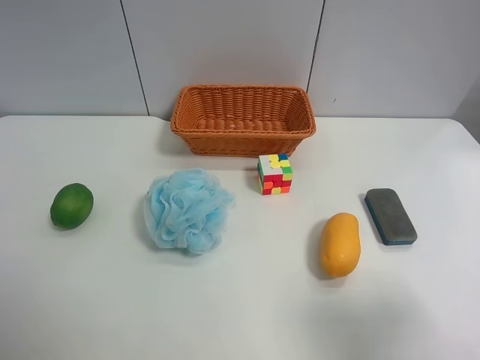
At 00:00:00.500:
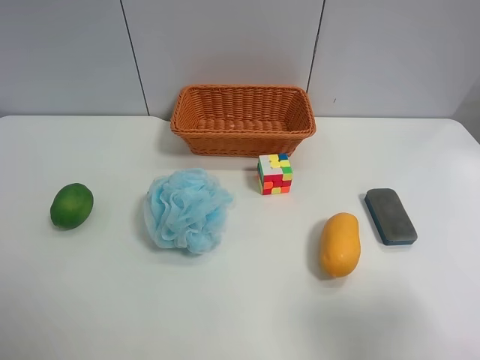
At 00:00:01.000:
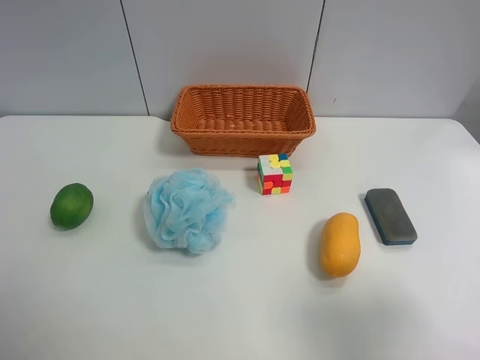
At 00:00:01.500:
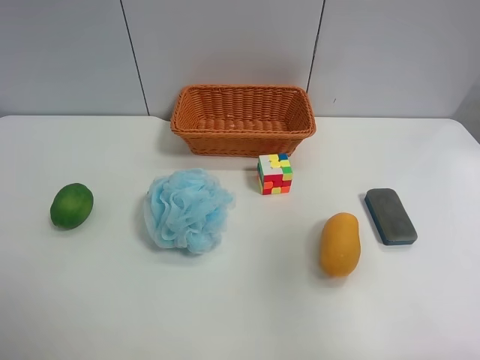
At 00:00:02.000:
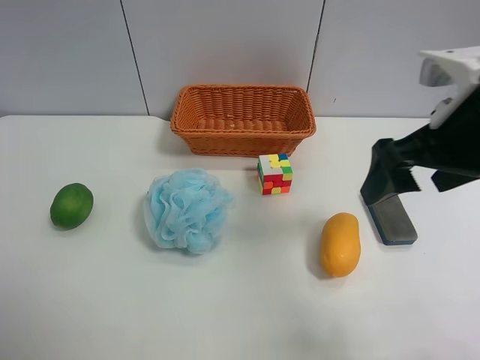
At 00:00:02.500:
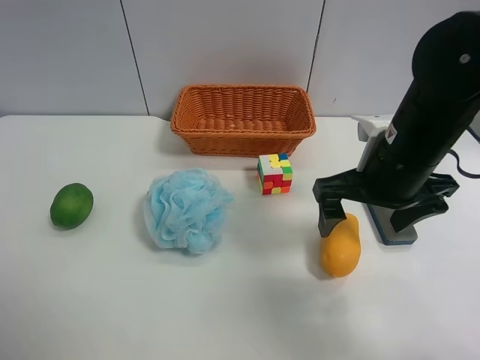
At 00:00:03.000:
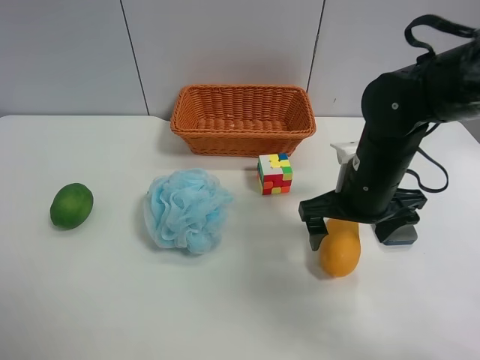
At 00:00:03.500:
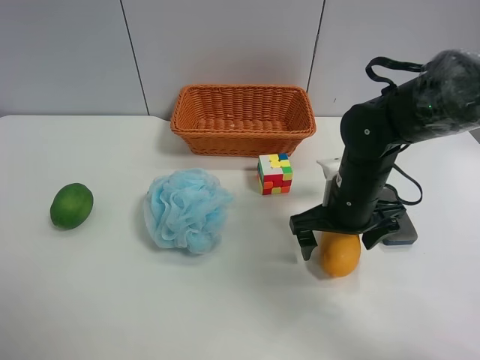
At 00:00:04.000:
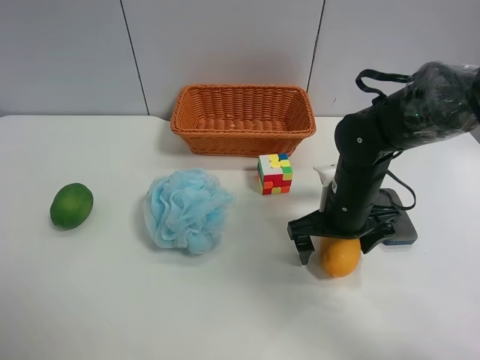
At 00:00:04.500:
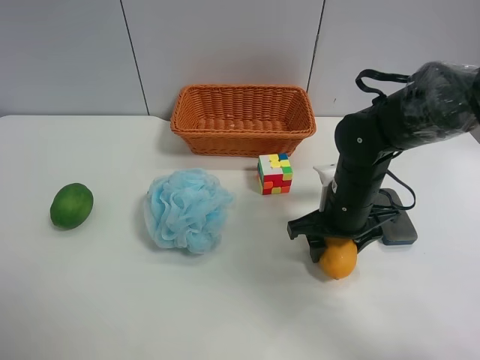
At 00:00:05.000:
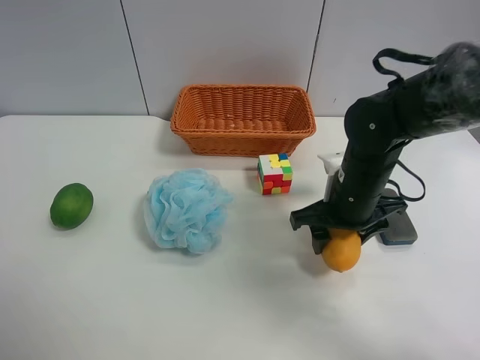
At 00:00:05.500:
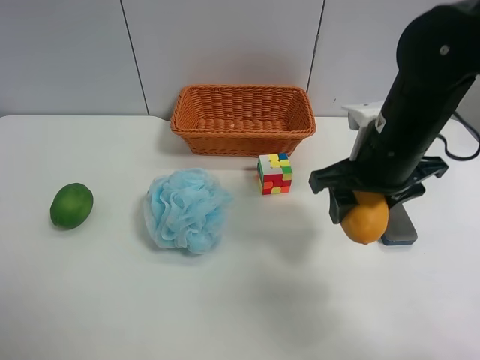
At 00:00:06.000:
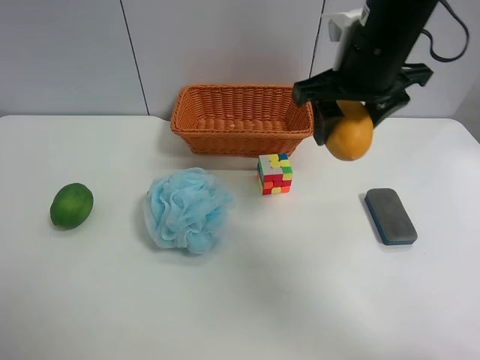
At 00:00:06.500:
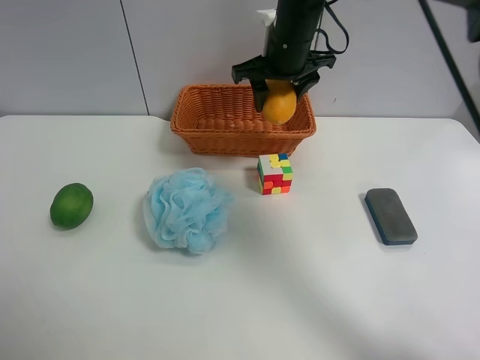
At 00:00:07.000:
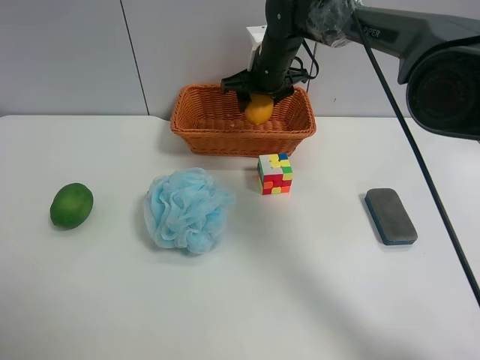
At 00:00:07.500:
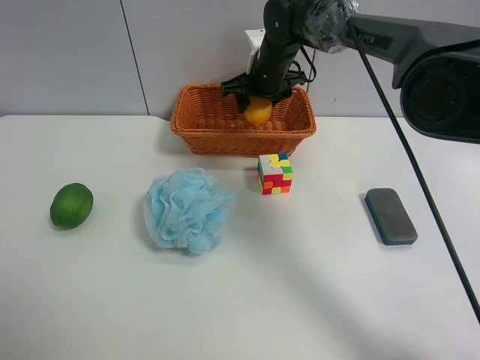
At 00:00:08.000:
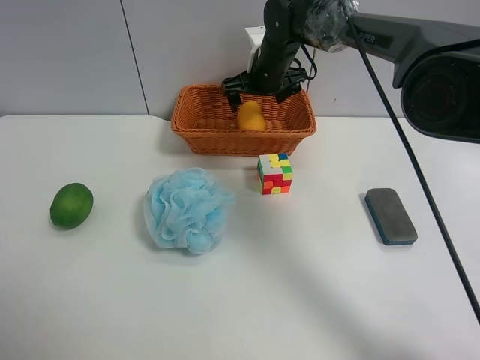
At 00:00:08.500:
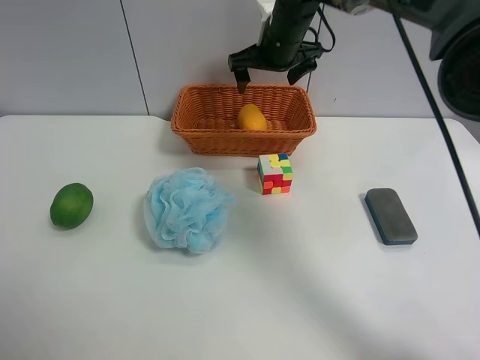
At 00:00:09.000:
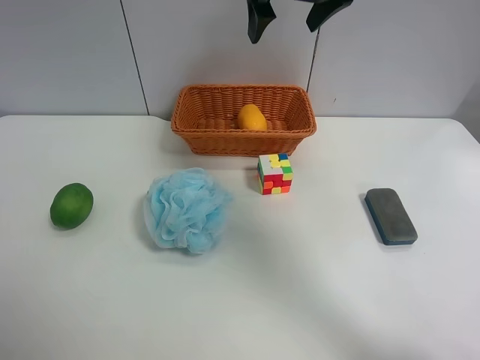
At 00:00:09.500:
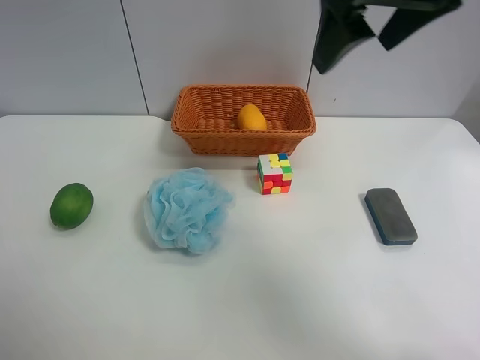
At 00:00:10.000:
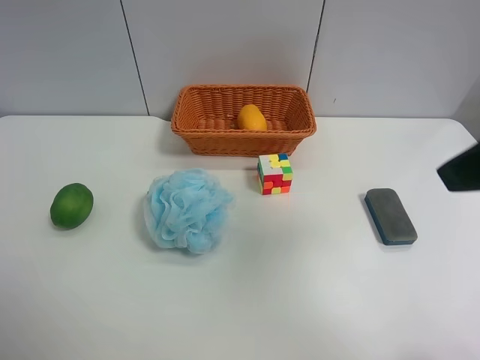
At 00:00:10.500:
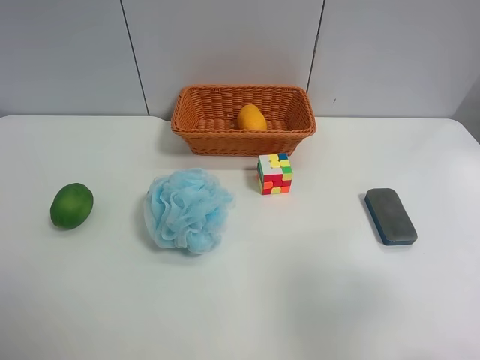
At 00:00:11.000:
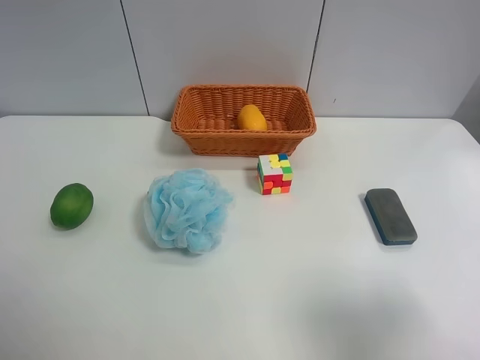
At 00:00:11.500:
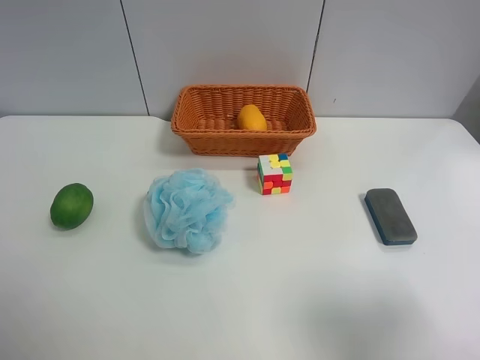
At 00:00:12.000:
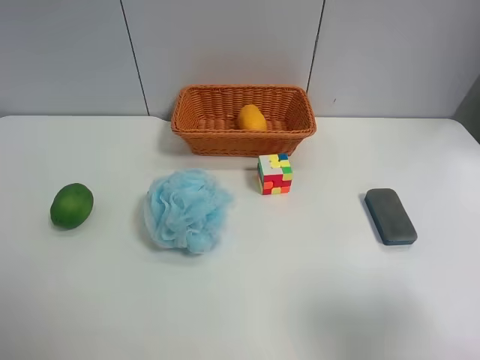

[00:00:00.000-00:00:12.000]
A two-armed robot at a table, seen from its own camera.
Task of the whole recording: Randomly grab green lemon or mangoes from the table and put them in a basket.
Step, 00:00:00.000 to 00:00:04.000: Grasp the mango with the right gripper.
Step, 00:00:04.500 to 00:00:08.500: Place the mango into the basket with the right gripper.
00:00:00.000 to 00:00:02.000: The right gripper heads forward and to the left, covering some 20 cm.
00:00:02.000 to 00:00:04.000: The right gripper heads downward, covering about 15 cm.
00:00:04.000 to 00:00:06.000: The right gripper moves upward, about 20 cm, and closes.
00:00:06.000 to 00:00:08.000: The right gripper moves forward and downward, some 20 cm, and opens.
00:00:08.000 to 00:00:10.000: The right gripper travels backward, to the right and upward by some 40 cm.
00:00:10.000 to 00:00:12.000: The right gripper is displaced backward, downward and to the right by about 15 cm.
